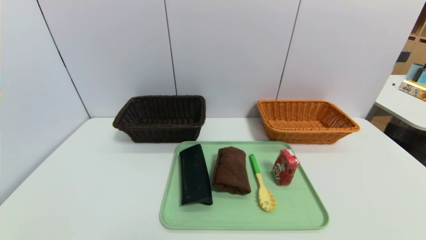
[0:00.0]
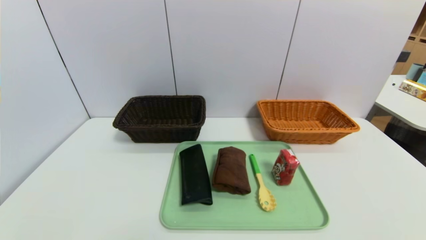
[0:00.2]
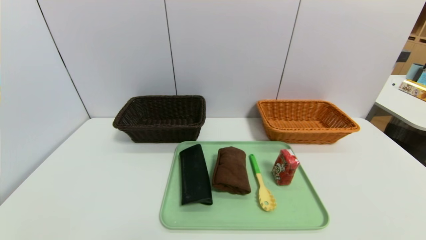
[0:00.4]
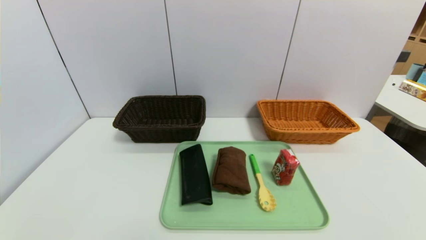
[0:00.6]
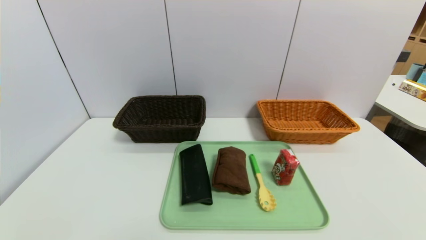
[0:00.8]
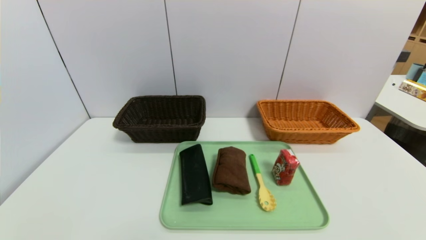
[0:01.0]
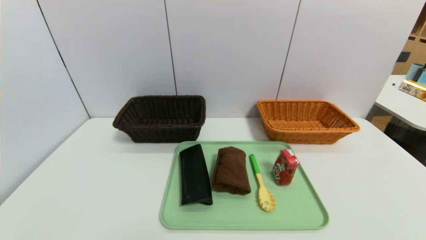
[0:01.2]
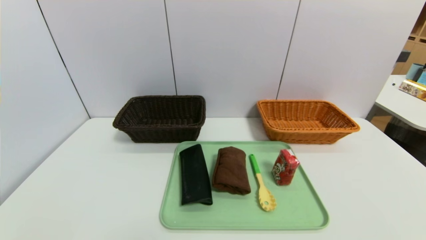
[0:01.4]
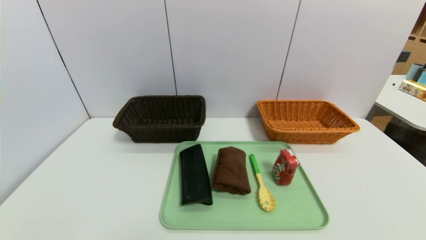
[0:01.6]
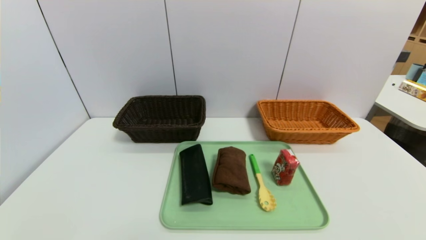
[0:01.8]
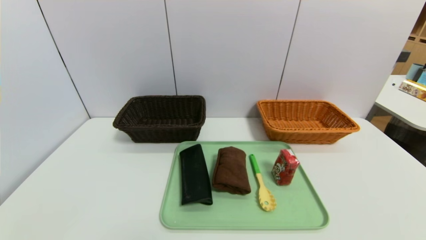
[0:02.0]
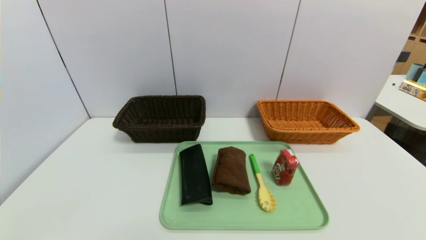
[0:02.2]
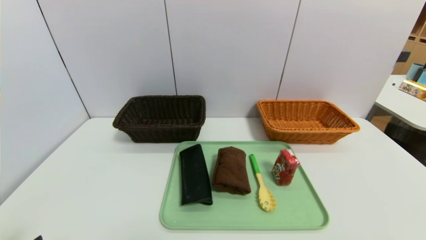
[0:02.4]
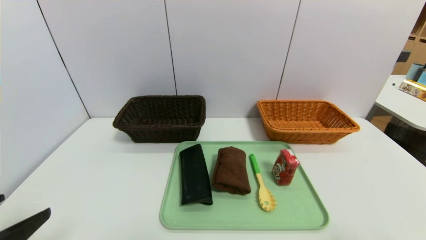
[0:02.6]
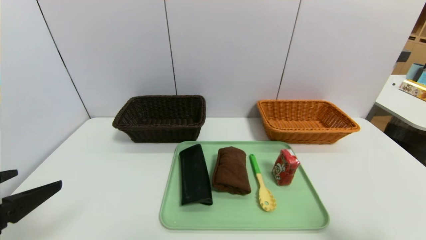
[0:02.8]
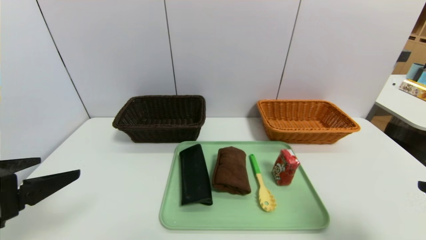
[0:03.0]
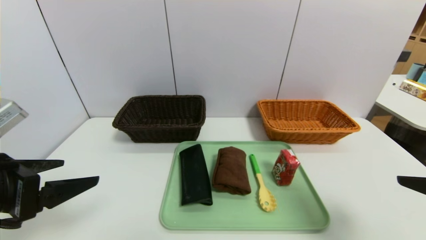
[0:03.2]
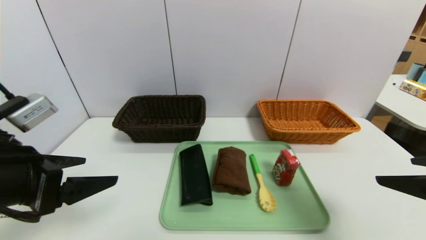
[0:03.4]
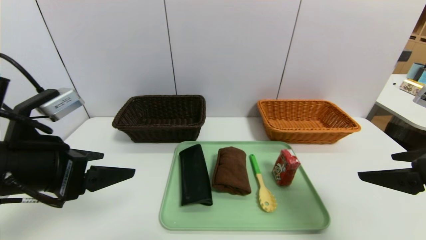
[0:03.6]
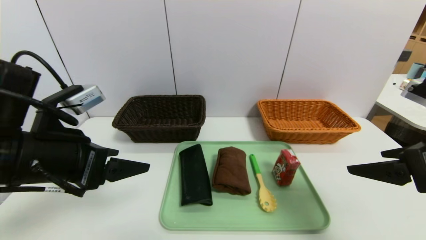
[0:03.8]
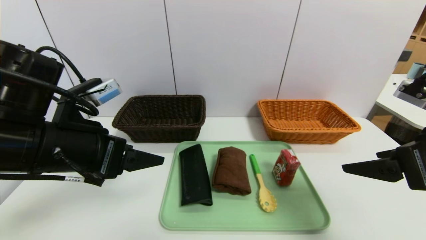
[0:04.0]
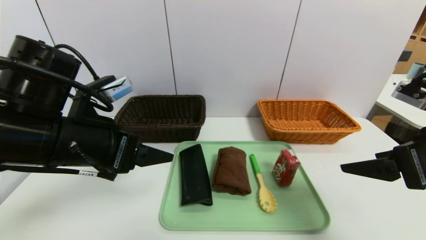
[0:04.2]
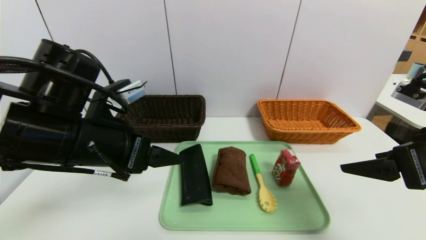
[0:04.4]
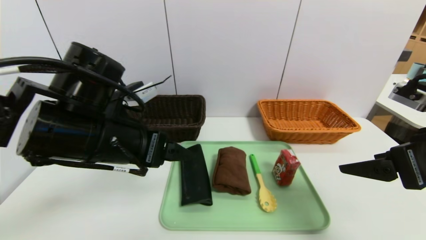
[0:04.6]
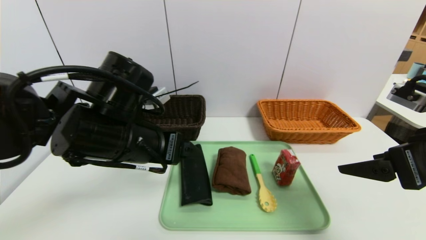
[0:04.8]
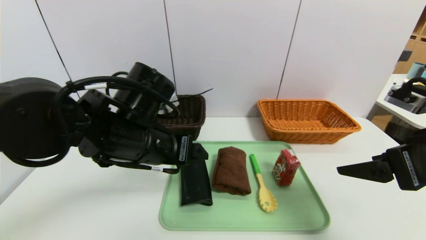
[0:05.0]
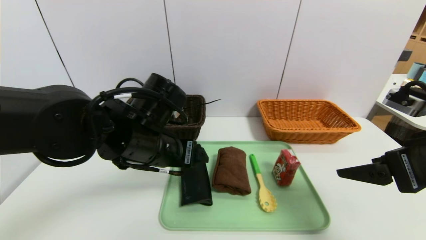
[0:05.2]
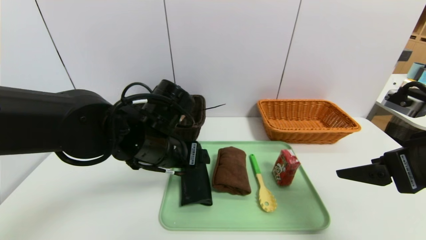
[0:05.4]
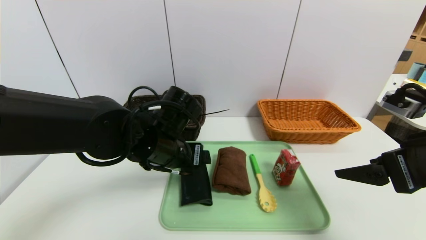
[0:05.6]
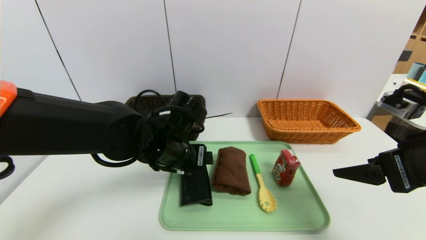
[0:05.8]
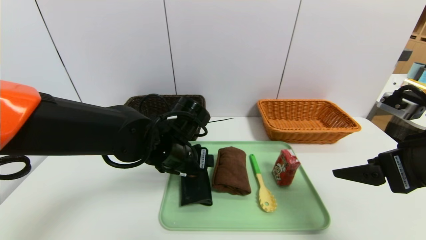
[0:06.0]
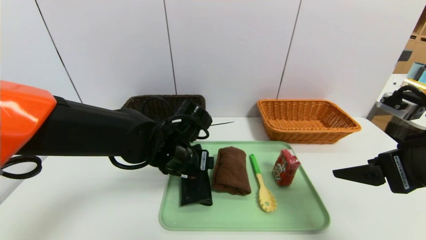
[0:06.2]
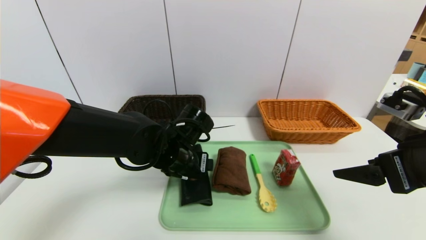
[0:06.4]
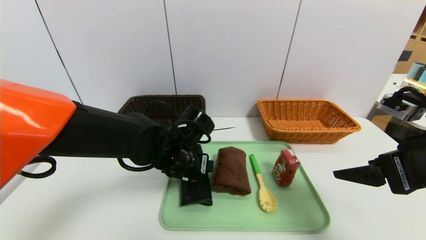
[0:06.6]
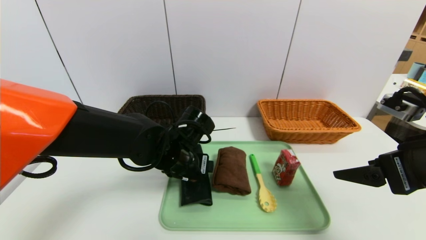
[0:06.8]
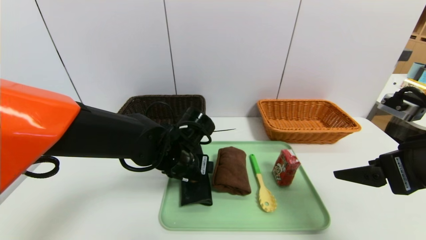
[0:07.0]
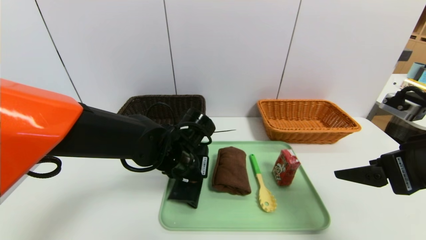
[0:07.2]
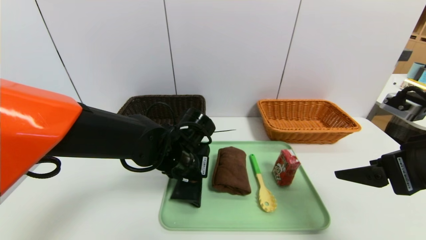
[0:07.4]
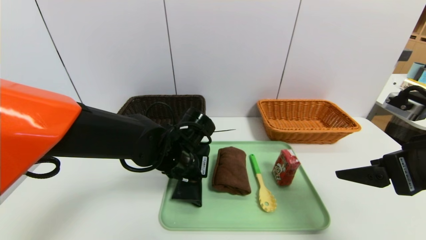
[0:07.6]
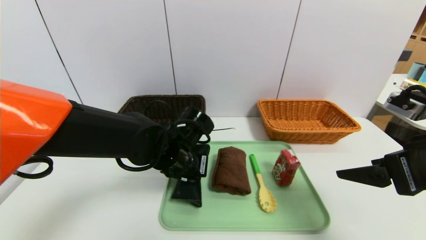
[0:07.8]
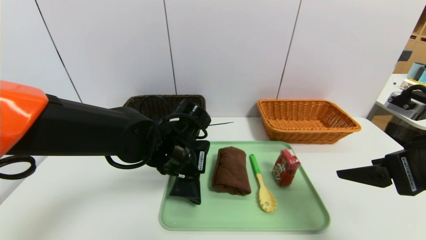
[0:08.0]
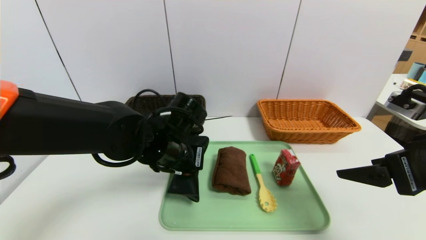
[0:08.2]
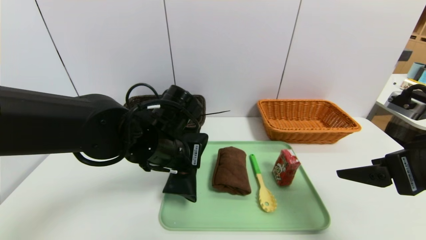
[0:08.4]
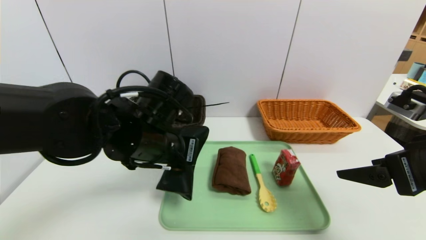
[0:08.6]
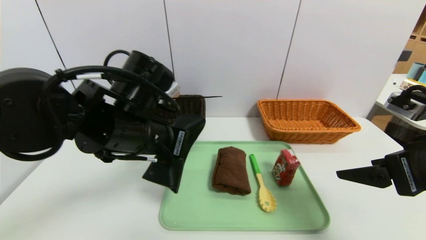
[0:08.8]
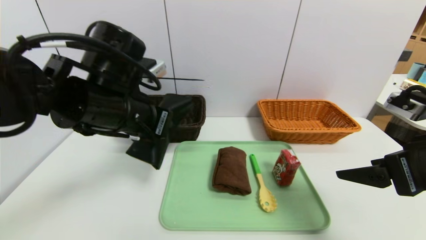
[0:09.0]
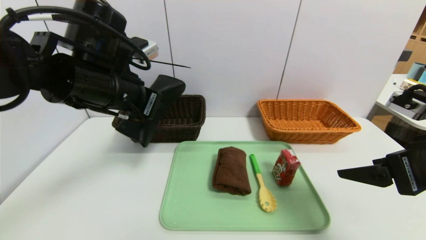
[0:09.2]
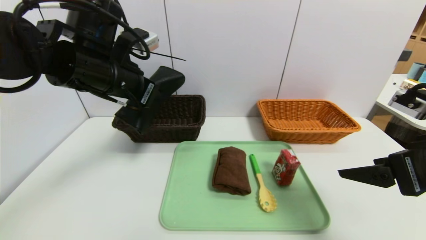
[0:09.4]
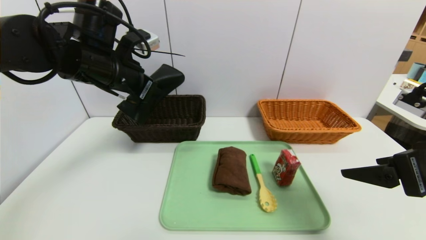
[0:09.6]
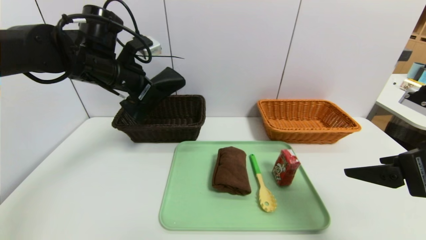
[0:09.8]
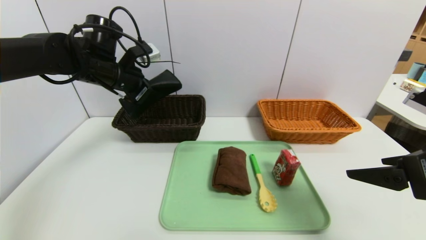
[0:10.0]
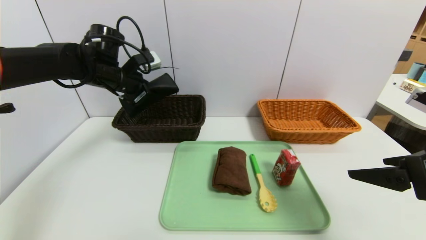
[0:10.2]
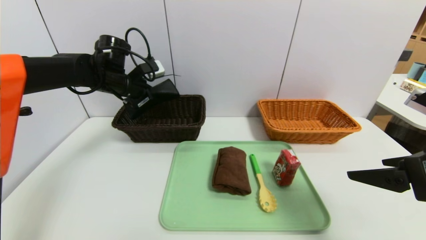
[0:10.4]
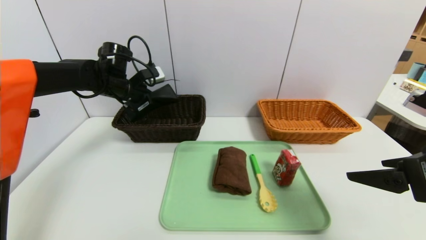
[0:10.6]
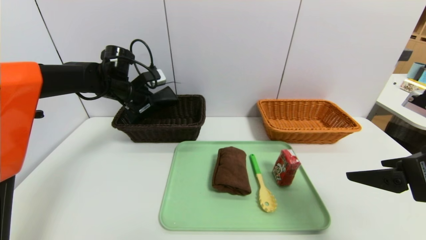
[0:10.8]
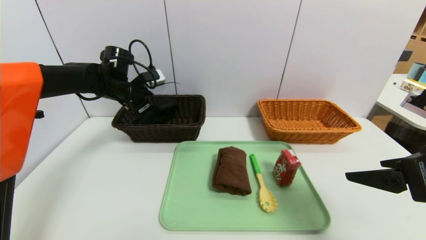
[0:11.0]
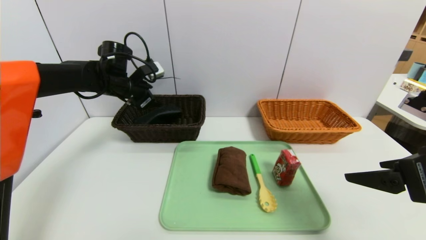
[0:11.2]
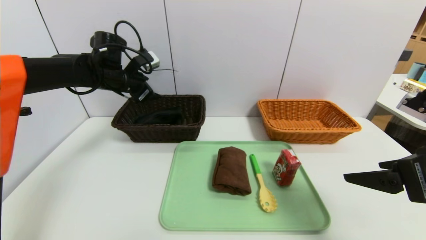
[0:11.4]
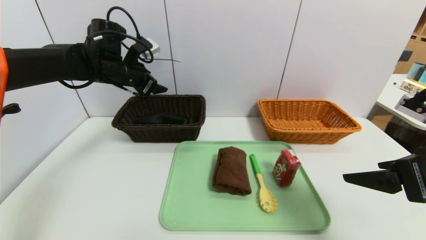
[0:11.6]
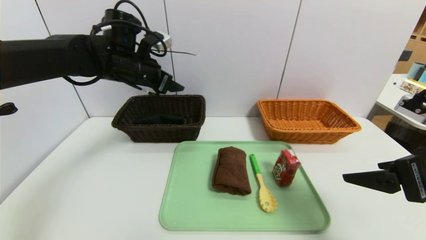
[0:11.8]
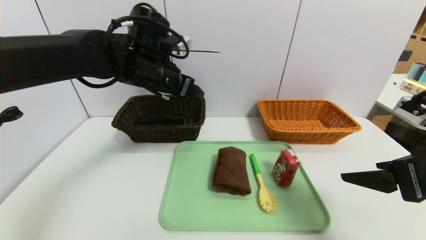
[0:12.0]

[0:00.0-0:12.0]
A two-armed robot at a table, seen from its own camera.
Task of the whole recording: place the food in the right basket with the right gripper, and place the non food items in the left basket with the left gripper.
Step, 0:00.0 to 0:12.0: Grasp the glasses case and put it in the left basket.
0:01.6 to 0:03.0: Both grippers move upward and forward, about 20 cm.
0:03.0 to 0:04.4: The left gripper shifts about 15 cm to the right and forward; the right gripper goes approximately 10 cm forward.
0:04.4 to 0:06.0: The left gripper heads to the right, downward and forward, covering approximately 15 cm.
0:06.0 to 0:07.6: The left gripper closes its fingers.
0:07.6 to 0:09.0: The left gripper is displaced upward and to the left by roughly 15 cm.
0:09.0 to 0:10.4: The left gripper moves forward and to the left, about 20 cm.
0:10.4 to 0:12.0: The left gripper moves to the right and backward, about 15 cm, and opens up.

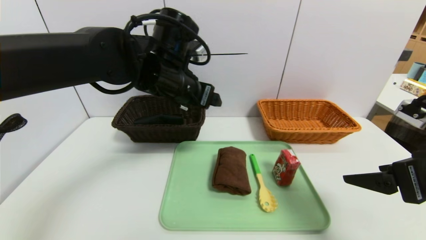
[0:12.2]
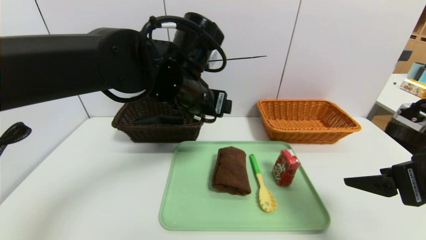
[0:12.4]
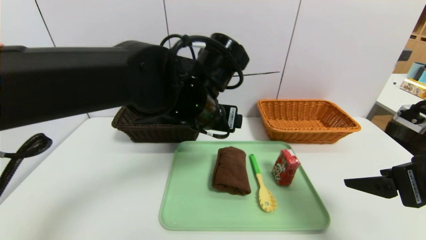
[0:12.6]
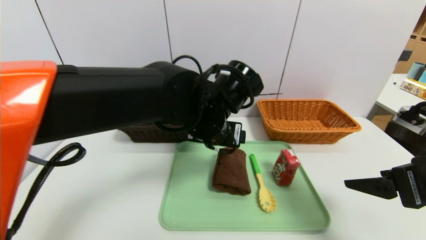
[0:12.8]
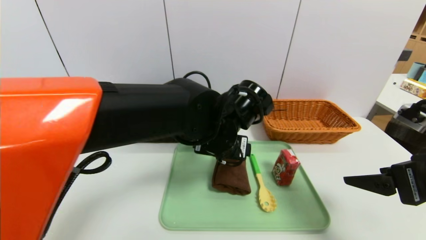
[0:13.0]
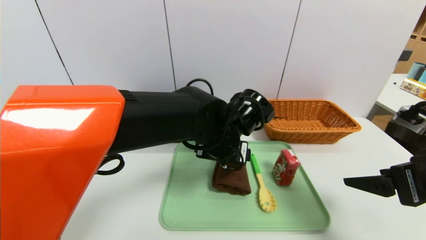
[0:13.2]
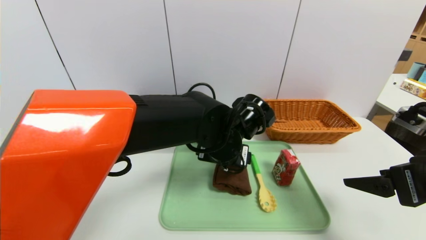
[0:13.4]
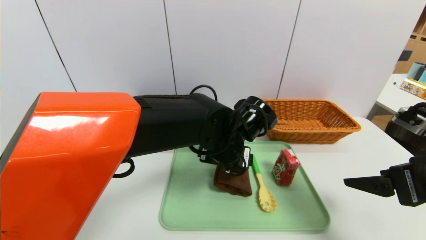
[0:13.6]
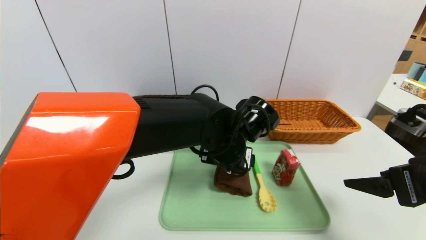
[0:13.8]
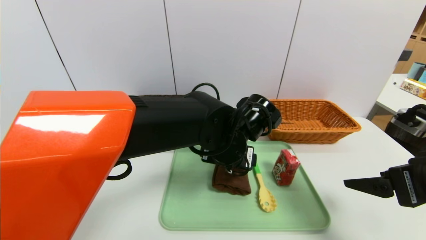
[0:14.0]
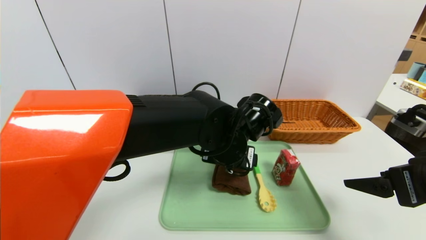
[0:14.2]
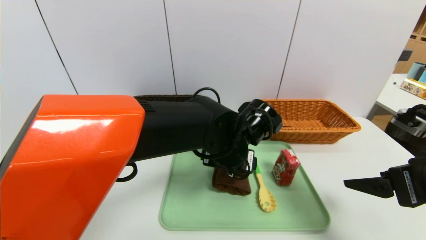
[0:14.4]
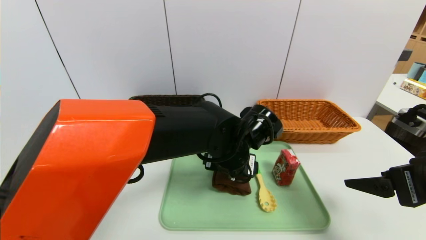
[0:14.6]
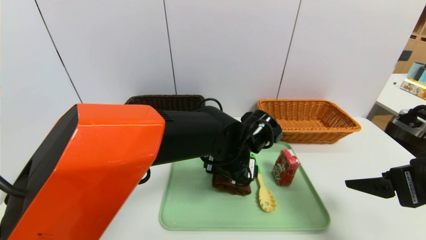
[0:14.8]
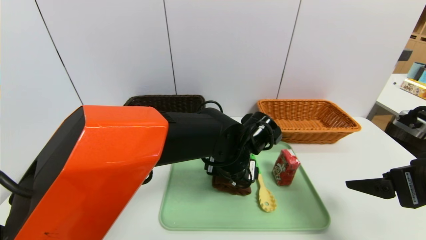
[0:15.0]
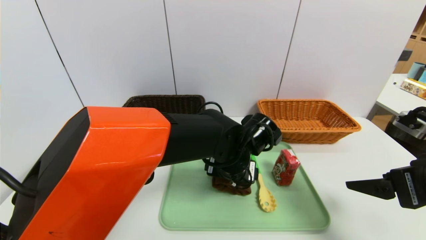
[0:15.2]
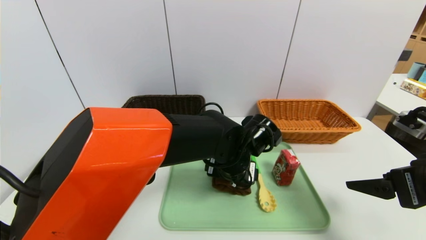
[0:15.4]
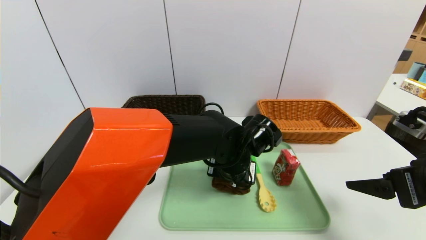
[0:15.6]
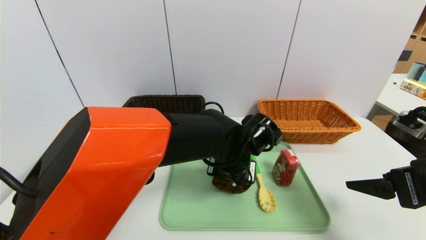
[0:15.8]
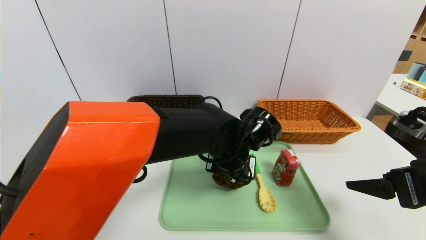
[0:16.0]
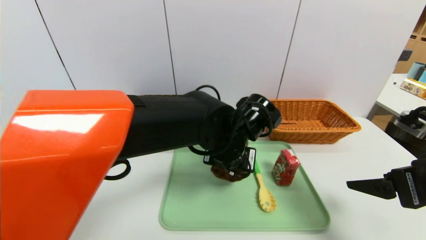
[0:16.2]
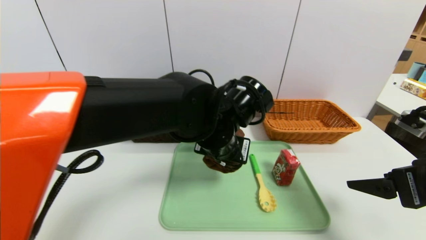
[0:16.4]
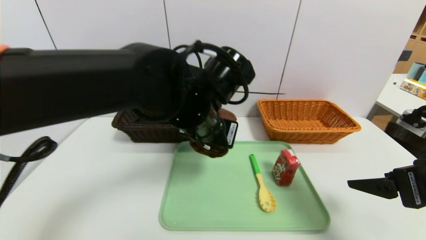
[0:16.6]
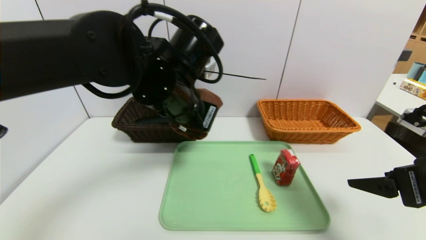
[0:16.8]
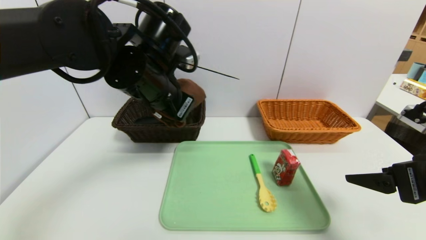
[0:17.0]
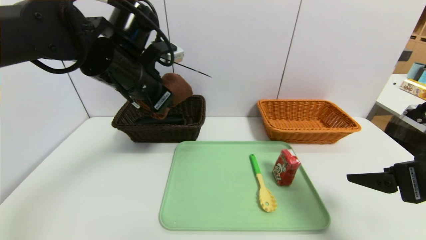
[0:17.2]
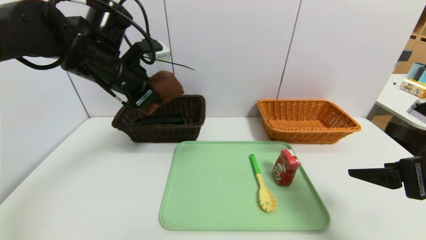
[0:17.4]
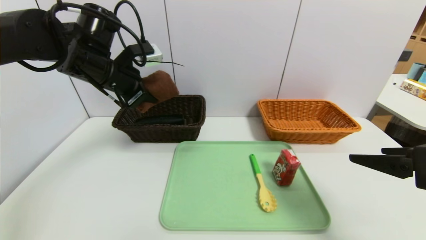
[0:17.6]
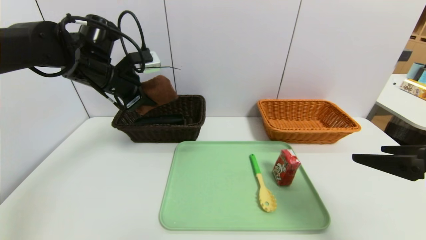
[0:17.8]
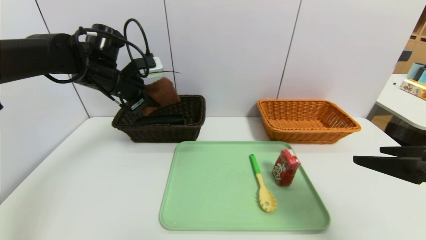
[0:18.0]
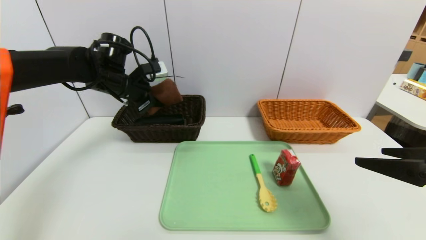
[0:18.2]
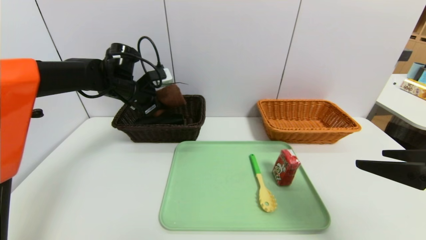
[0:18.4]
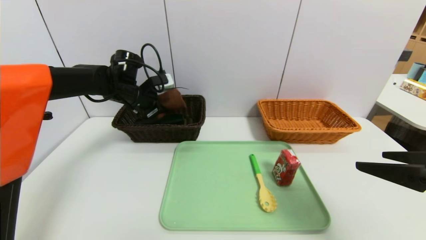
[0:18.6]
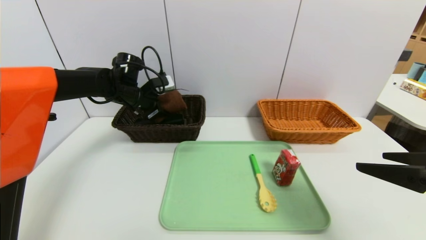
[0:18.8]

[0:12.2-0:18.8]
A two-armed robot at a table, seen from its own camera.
Task of the whole recording: place the food in the right basket with the right gripper, and place the non food items in the left basket with the left gripper.
0:12.2 to 0:13.8: The left gripper goes approximately 15 cm downward and to the right.
0:15.4 to 0:17.2: The left gripper is displaced to the left and upward by about 25 cm, and closes.
0:17.2 to 0:18.8: The left gripper moves forward, downward and to the left, approximately 20 cm.
